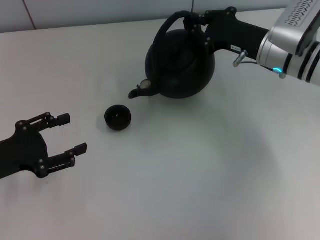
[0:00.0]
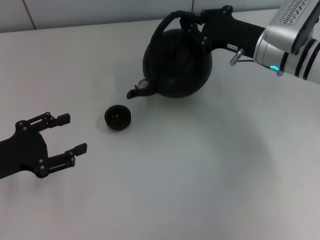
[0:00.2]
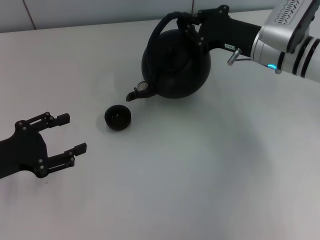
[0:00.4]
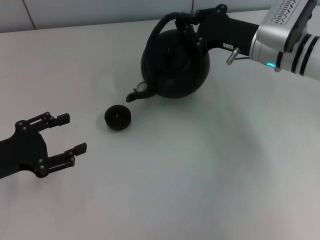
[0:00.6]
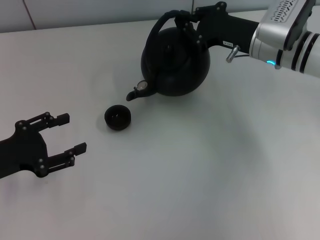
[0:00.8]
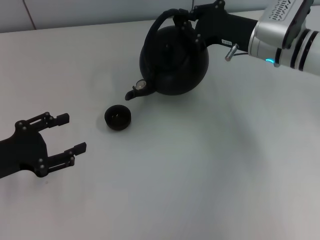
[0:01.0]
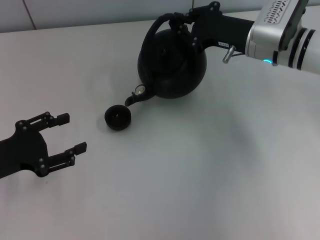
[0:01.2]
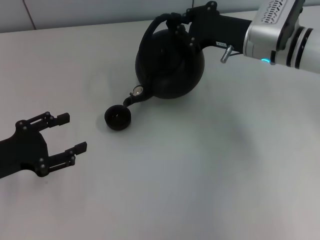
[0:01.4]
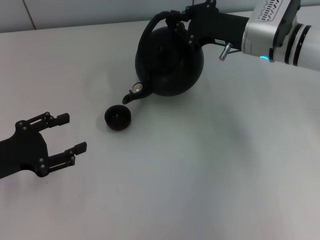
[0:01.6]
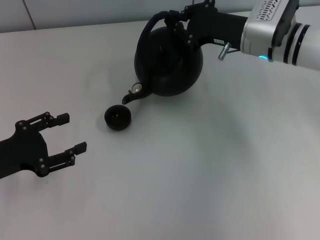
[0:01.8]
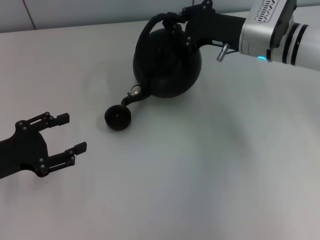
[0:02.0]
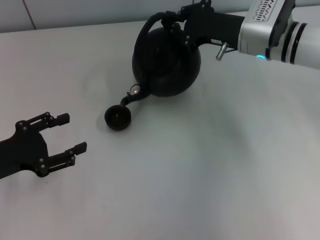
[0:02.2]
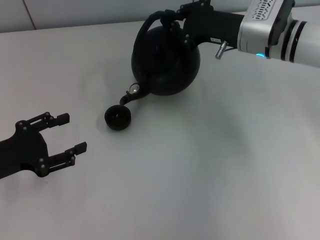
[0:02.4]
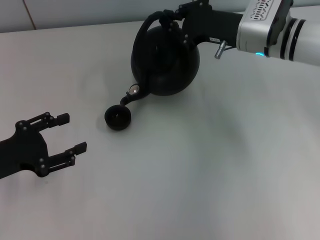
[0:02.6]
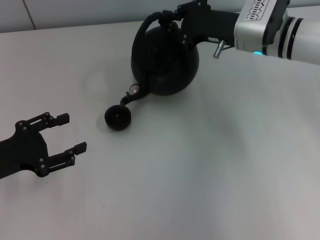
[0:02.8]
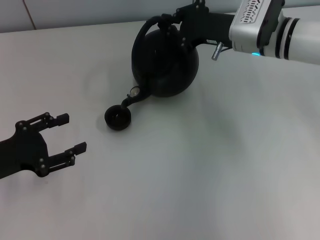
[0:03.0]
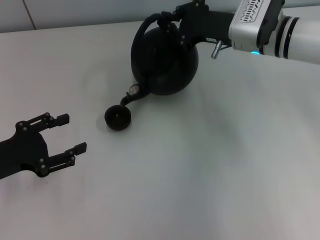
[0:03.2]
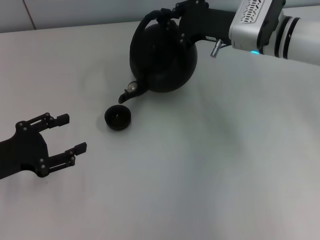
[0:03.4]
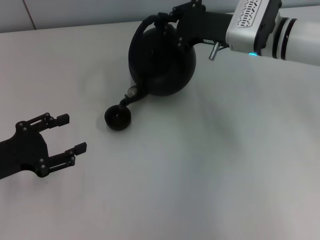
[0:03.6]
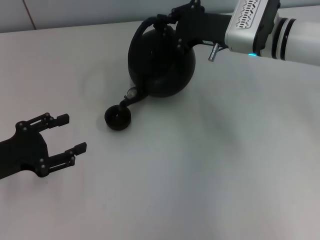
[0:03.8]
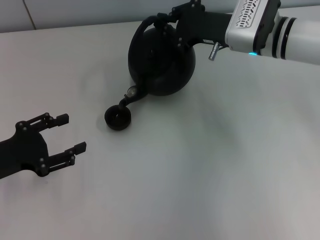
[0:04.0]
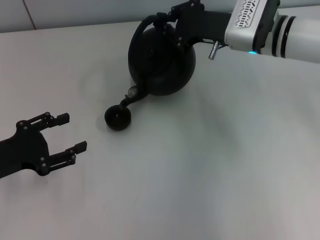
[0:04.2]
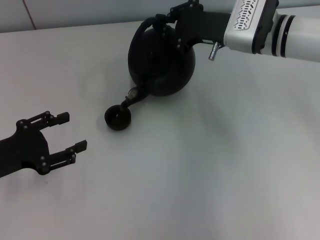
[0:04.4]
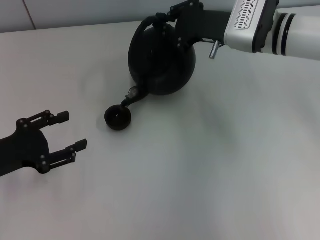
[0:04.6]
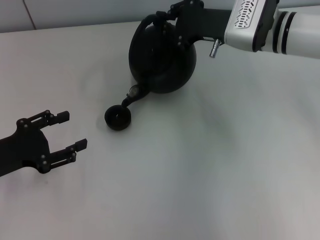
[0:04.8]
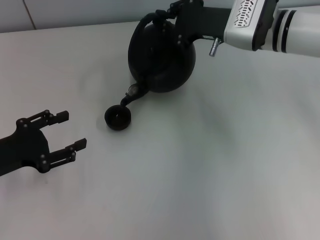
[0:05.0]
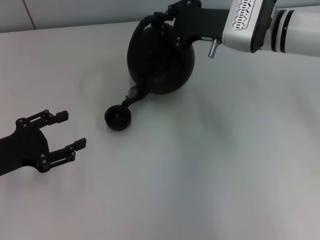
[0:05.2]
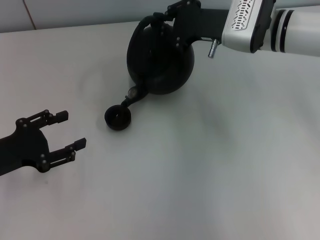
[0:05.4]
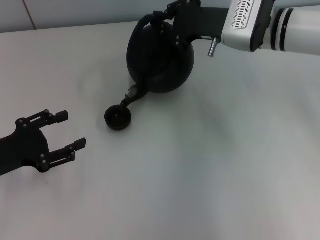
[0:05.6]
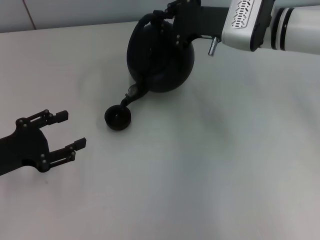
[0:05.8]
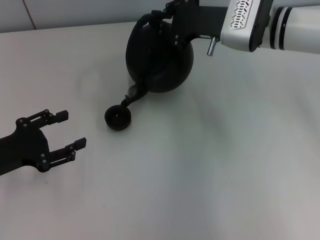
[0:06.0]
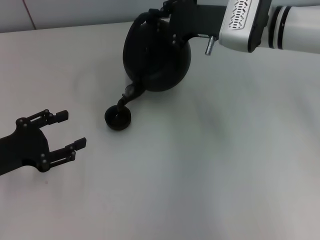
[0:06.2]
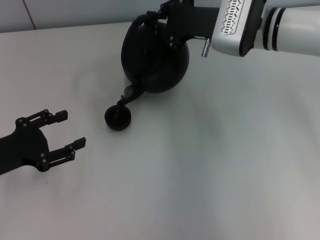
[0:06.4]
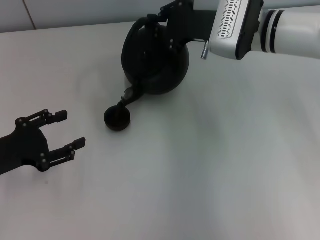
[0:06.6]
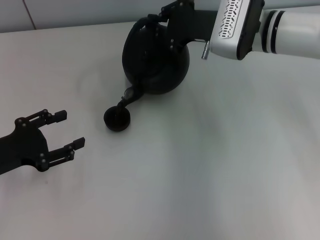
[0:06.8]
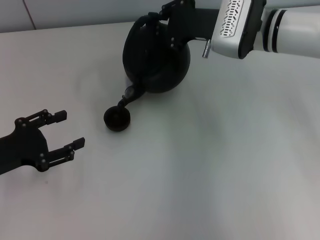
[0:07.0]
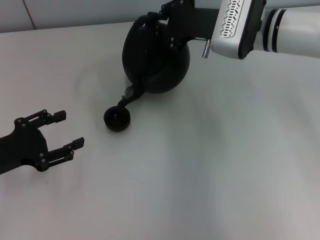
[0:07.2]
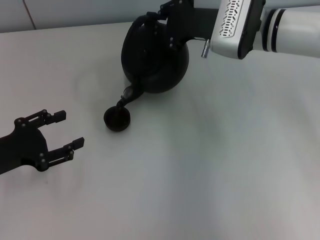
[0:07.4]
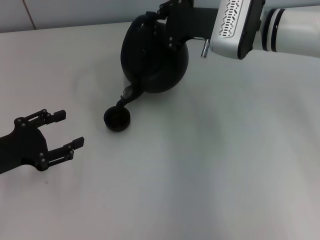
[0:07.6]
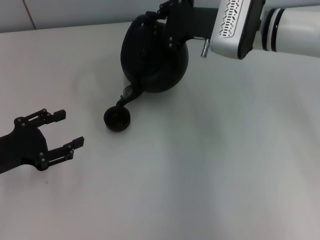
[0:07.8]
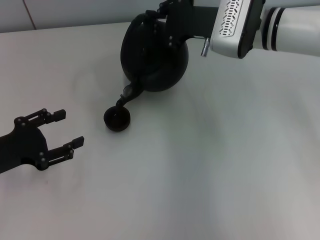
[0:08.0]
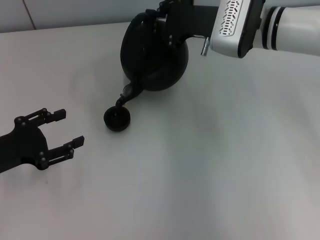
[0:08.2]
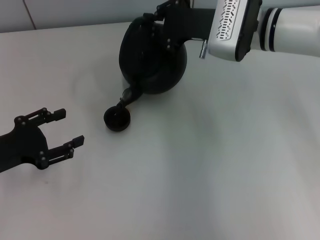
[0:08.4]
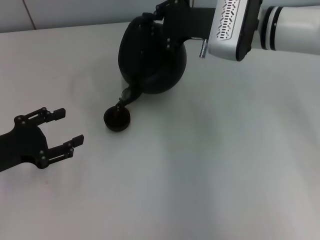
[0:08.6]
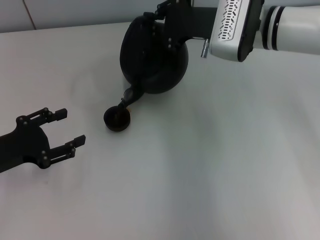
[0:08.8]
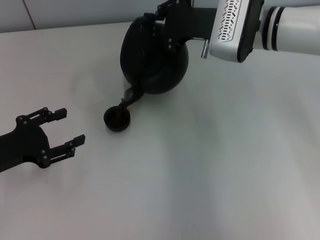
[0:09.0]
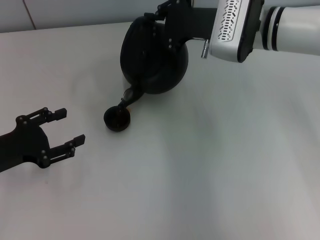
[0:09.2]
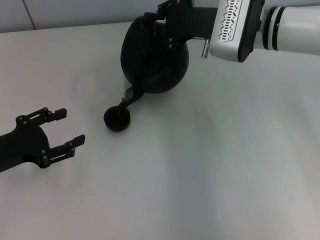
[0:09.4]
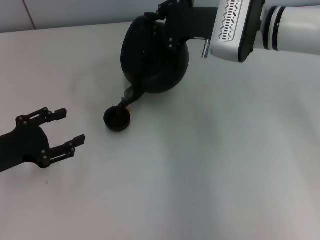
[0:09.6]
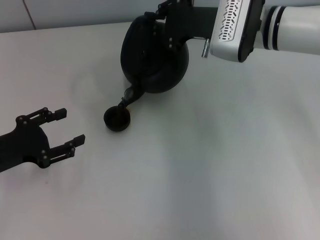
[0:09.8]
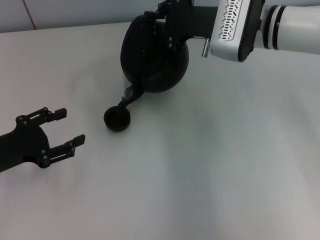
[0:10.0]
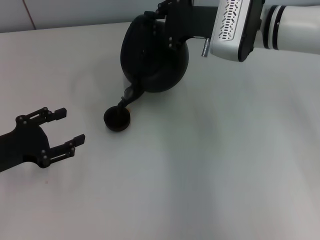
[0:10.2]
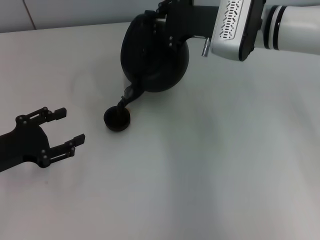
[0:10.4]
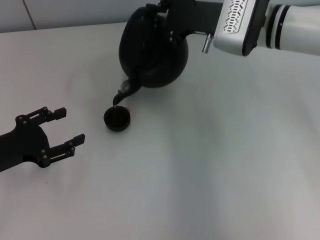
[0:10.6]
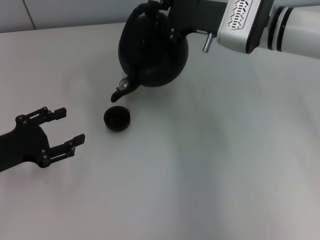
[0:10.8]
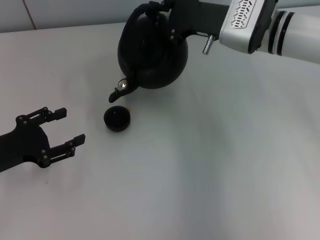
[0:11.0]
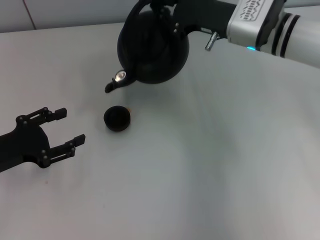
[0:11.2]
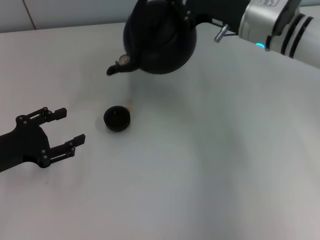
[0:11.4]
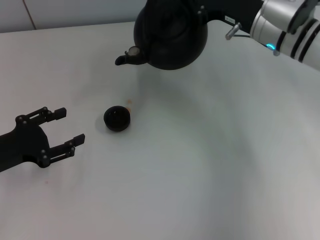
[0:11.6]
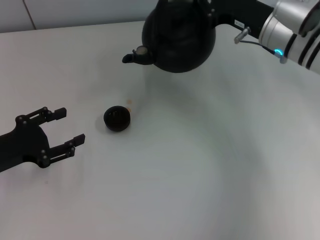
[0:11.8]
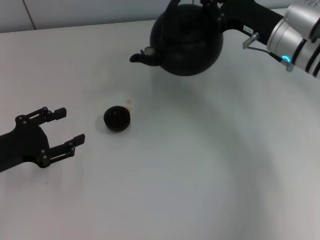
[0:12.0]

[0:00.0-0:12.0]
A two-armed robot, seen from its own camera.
Task of the whole recording: Grasp the handle of the teapot with one hand and pour tea into the teacup.
0:00.0 to 0:03.0: The grippers make only small movements.
0:03.0 to 0:04.4: The grippers move only a little.
0:04.4 to 0:06.0: Both grippers stay about where they are.
0:06.0 to 0:07.6: The two grippers keep their place.
0:07.6 to 0:10.4: Both grippers stay put.
0:10.4 to 0:12.0: The right gripper heads to the right, covering about 5 cm.

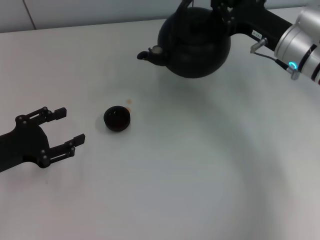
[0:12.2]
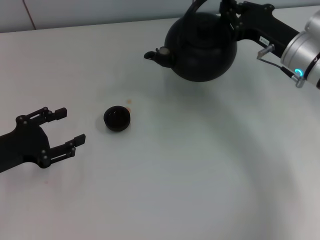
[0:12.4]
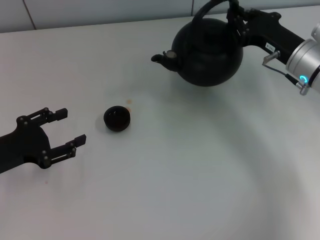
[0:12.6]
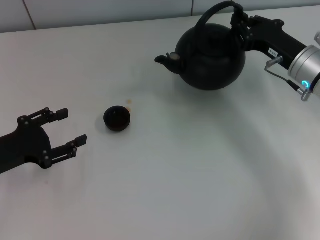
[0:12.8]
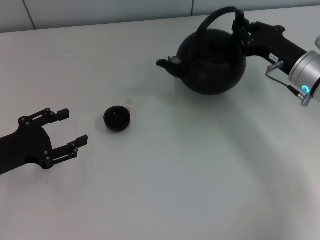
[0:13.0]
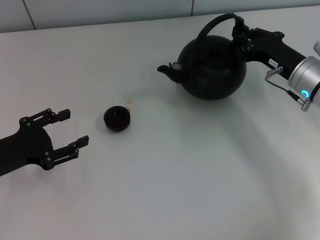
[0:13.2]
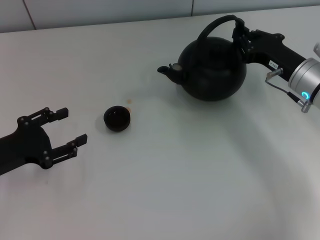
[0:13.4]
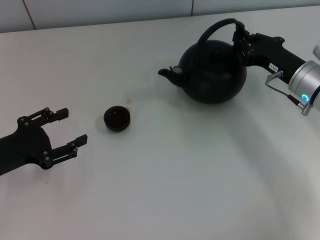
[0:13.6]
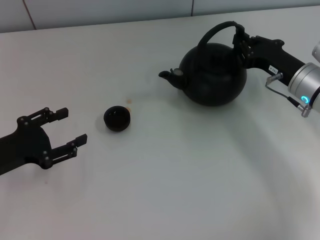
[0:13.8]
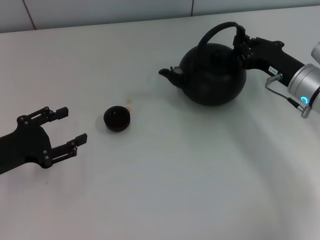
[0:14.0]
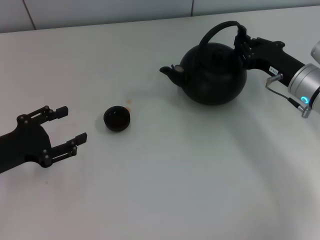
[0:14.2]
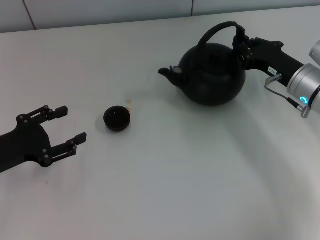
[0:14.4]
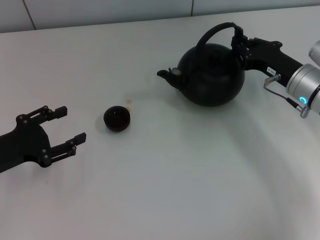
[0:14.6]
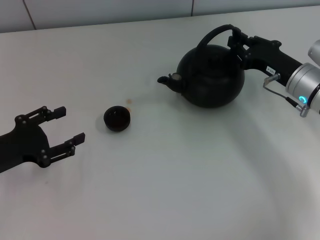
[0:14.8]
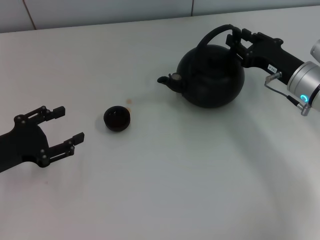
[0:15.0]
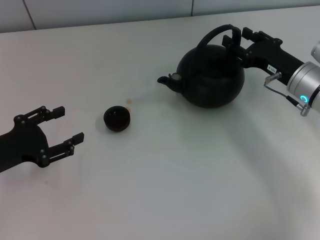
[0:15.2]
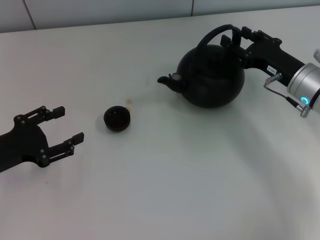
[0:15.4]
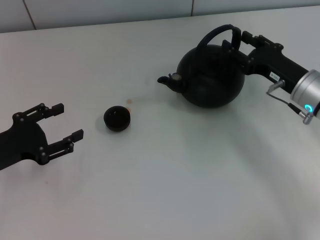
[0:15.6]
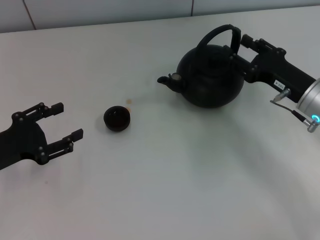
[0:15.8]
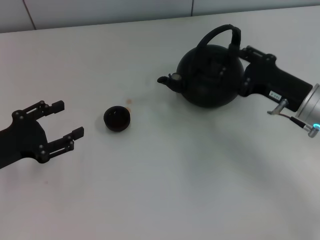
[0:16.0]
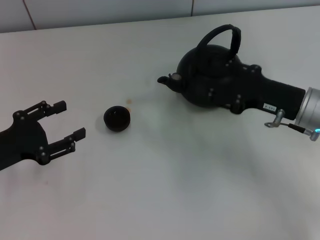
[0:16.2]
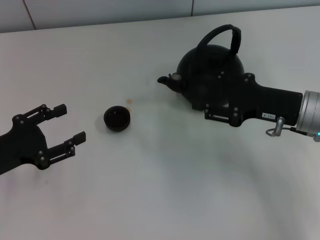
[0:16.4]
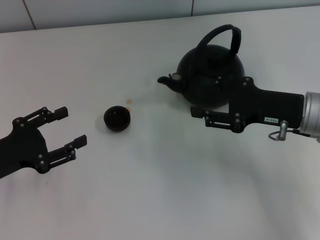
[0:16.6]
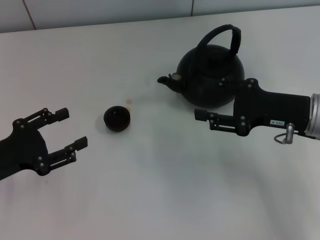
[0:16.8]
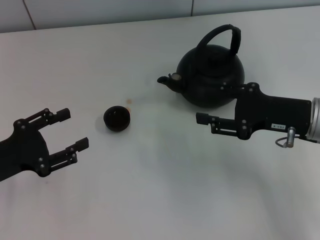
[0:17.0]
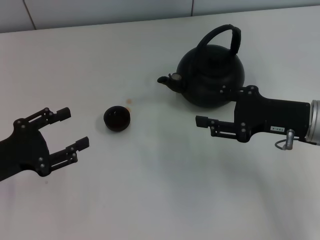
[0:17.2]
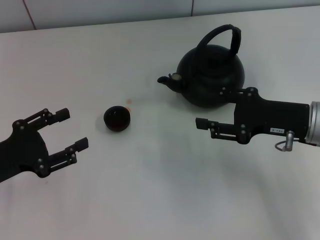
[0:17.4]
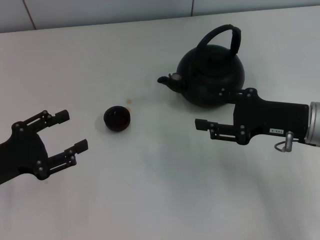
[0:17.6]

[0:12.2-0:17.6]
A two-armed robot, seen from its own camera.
Task of the whole recording: Grasp the handle of the teapot with one hand and pour tea into the teacup.
Step, 0:12.2 to 0:16.0: Put down the teapot with the right gripper.
0:12.2 to 0:13.6: The right gripper changes place by about 5 cm.
0:13.6 to 0:15.0: Neither gripper changes place.
0:15.0 to 0:16.2: The right gripper travels backward by some 5 cm, and opens its fingers.
0:16.2 to 0:17.6: The grippers move only a little.

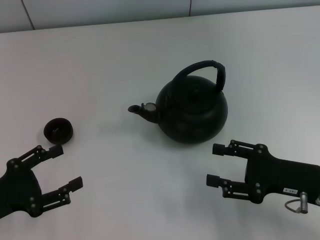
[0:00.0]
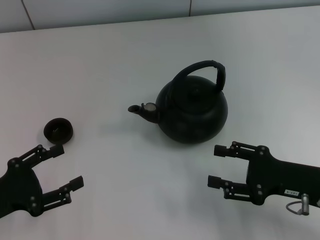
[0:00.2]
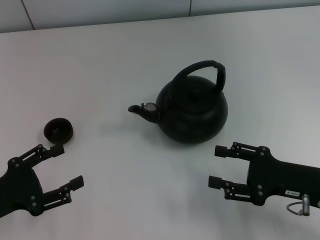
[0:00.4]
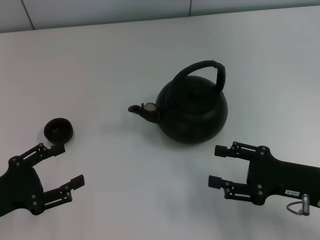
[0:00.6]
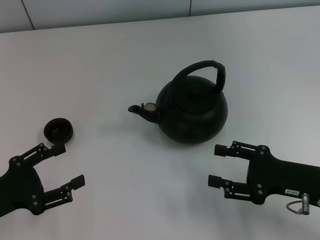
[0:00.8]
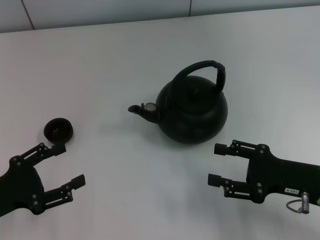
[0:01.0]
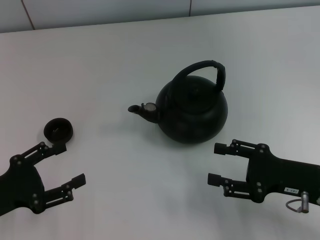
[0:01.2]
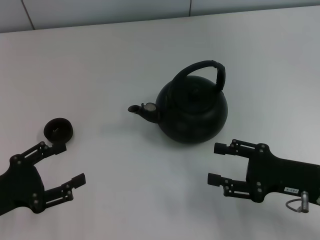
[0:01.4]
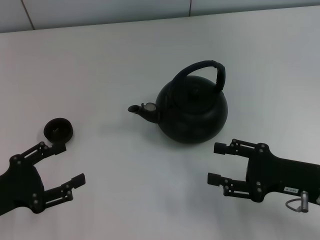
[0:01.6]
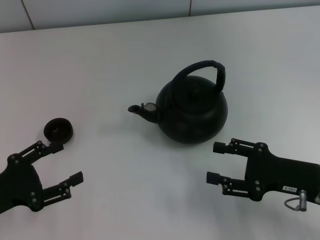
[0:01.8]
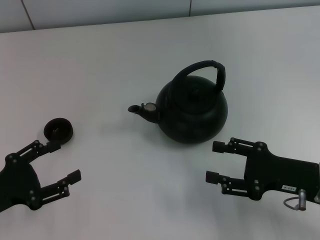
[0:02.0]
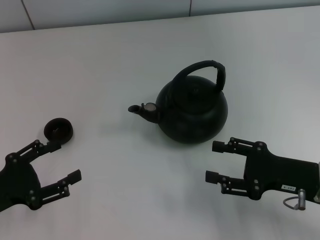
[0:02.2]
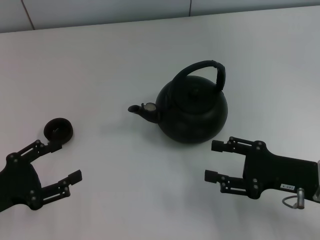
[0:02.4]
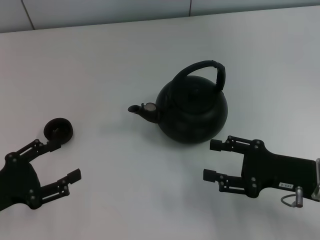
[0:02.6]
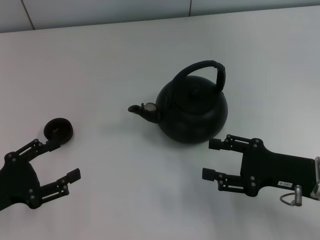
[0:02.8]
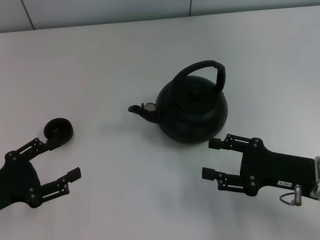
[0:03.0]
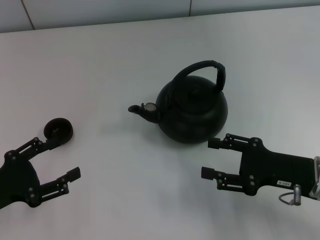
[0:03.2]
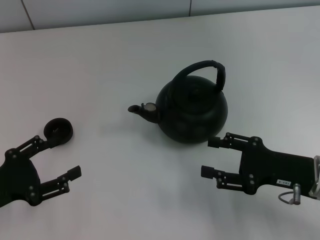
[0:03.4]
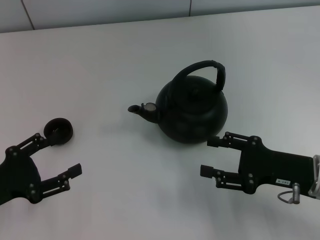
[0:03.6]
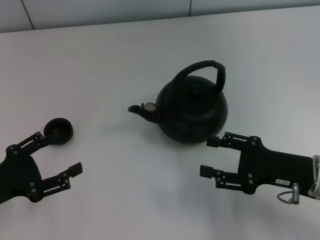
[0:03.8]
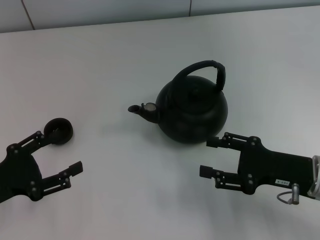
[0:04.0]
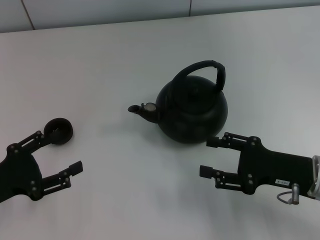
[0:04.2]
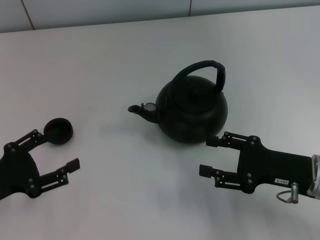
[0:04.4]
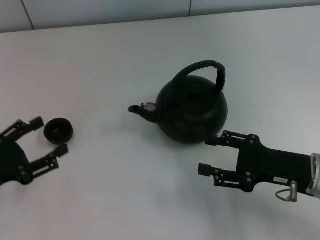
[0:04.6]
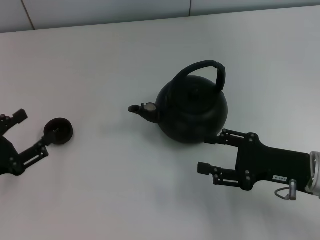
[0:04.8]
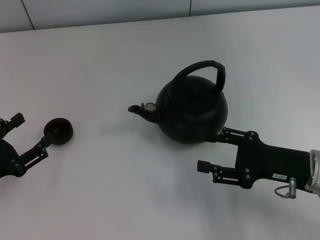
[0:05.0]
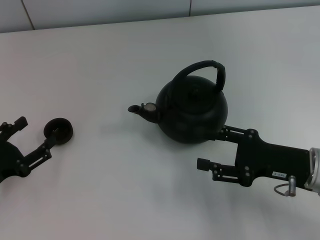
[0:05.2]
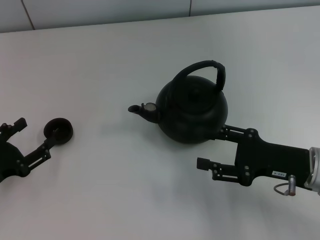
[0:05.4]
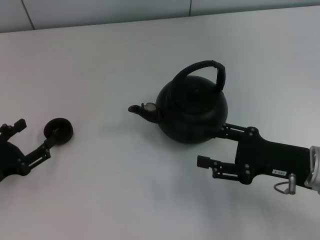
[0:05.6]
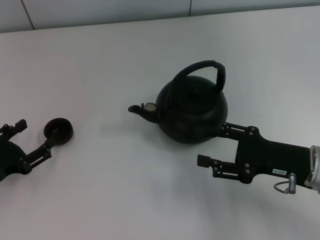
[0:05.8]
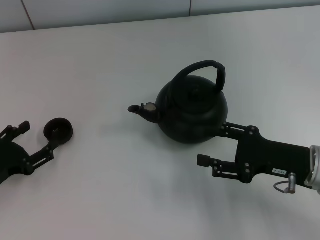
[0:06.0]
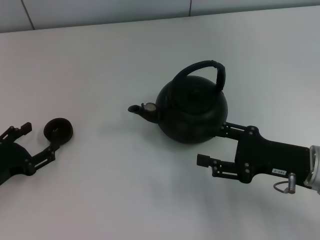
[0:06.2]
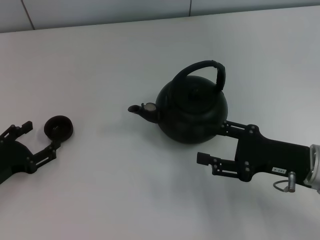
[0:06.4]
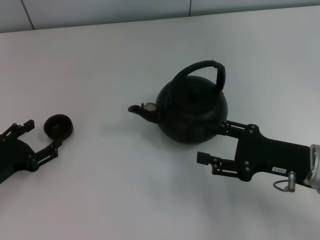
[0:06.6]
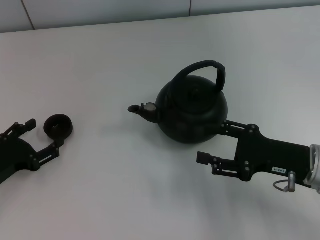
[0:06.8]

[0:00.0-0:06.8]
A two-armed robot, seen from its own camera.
Task of the whole recording: Grasp the handle of the teapot with one hand and pour tea into the teacup.
0:00.0 to 0:02.8: Both grippers stay about where they are.
0:02.8 to 0:04.0: Neither gripper changes place.
0:05.4 to 0:06.8: The grippers stay close to where they were, moving slightly.
